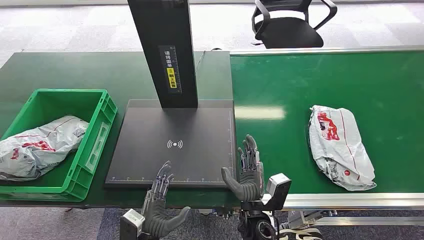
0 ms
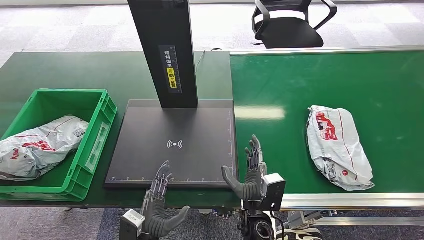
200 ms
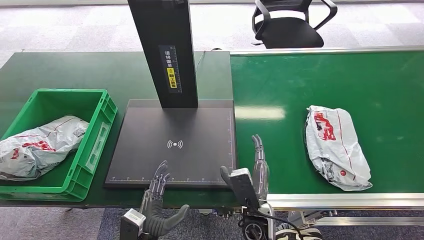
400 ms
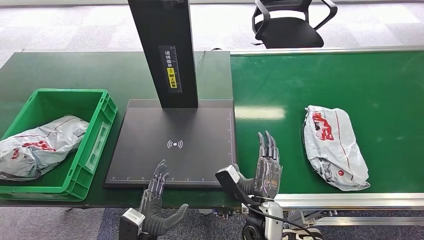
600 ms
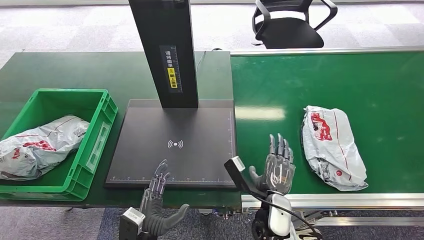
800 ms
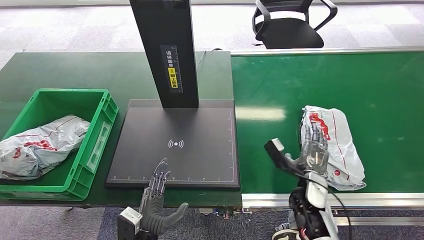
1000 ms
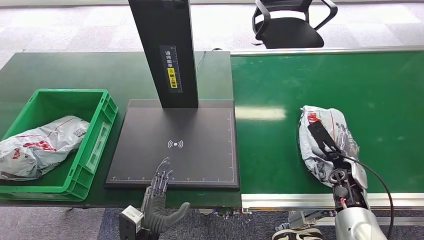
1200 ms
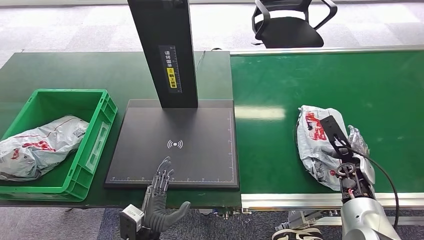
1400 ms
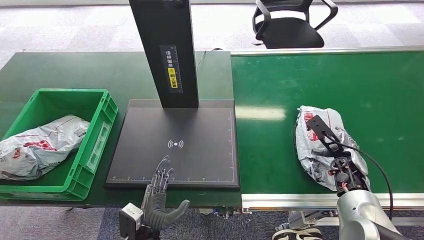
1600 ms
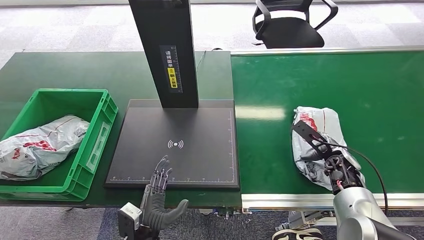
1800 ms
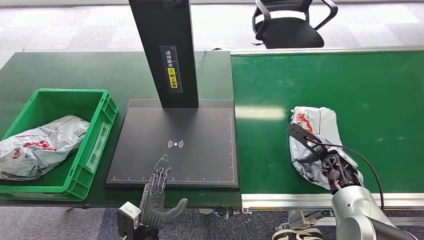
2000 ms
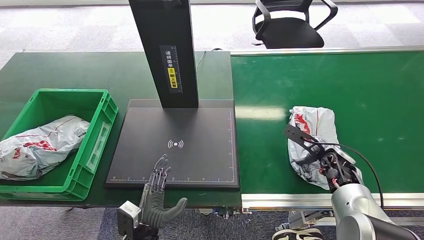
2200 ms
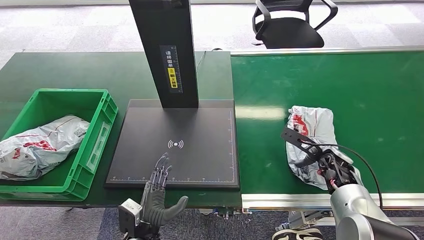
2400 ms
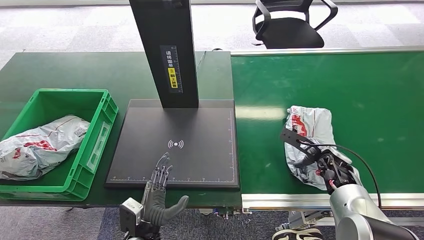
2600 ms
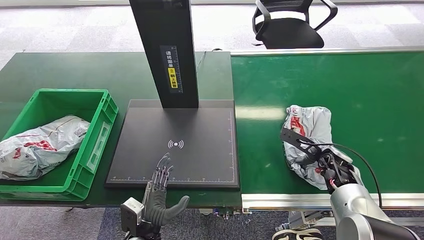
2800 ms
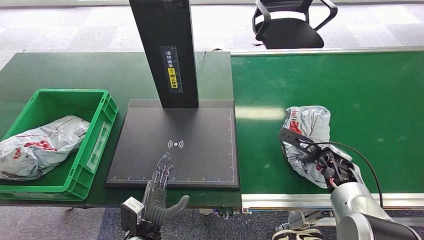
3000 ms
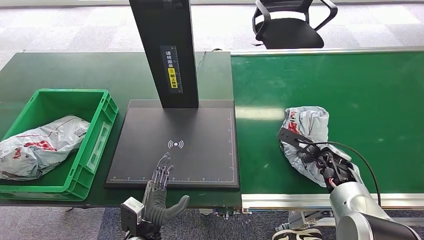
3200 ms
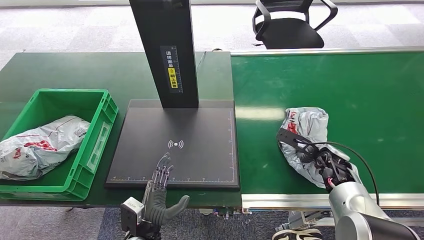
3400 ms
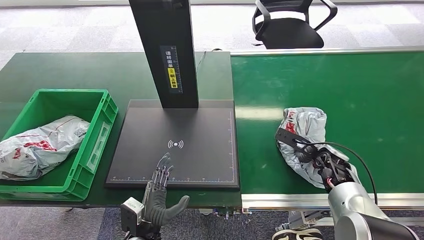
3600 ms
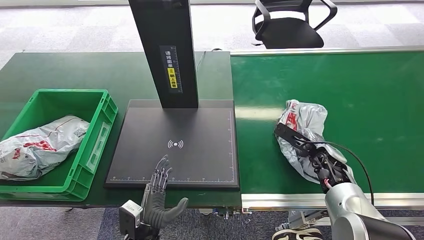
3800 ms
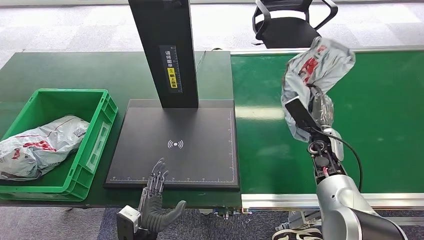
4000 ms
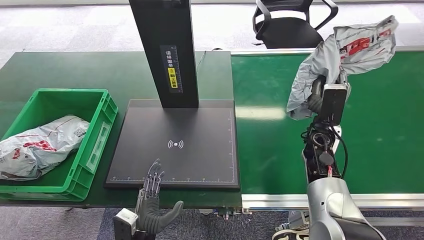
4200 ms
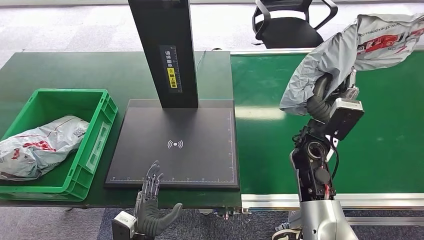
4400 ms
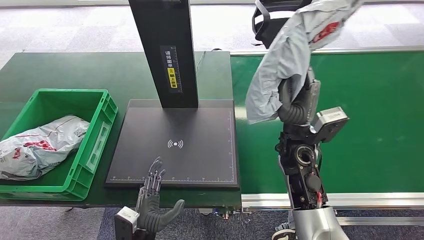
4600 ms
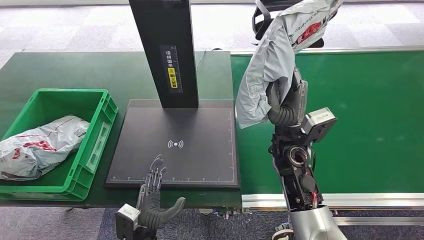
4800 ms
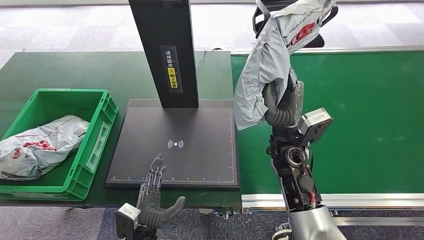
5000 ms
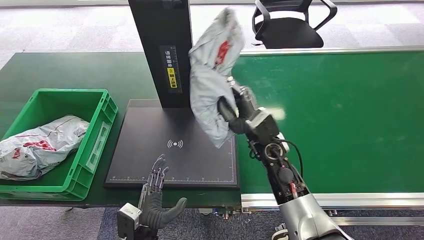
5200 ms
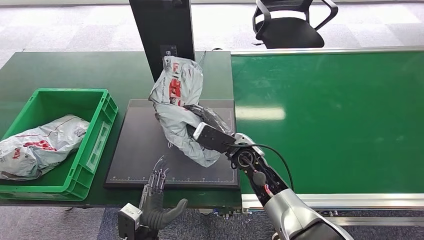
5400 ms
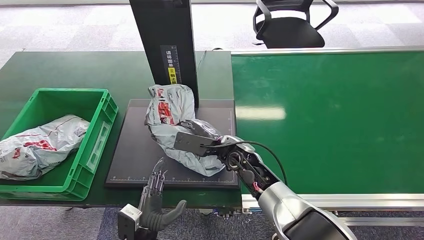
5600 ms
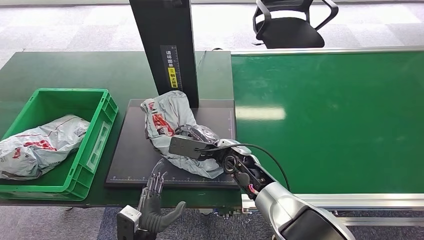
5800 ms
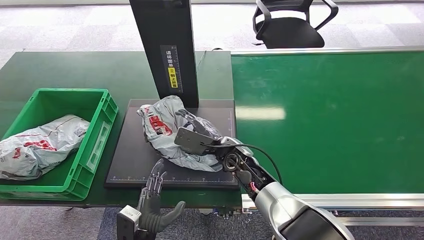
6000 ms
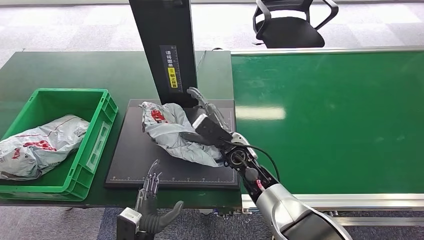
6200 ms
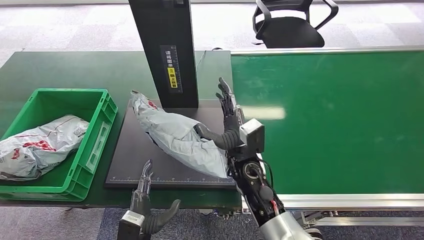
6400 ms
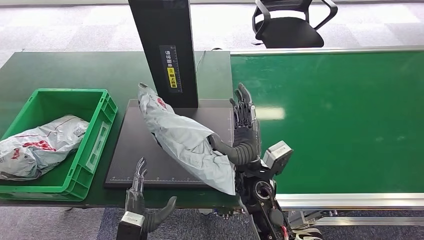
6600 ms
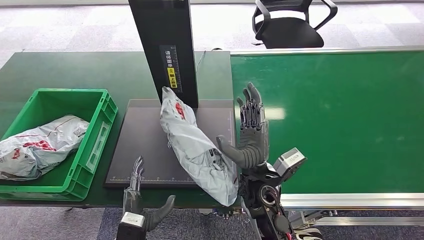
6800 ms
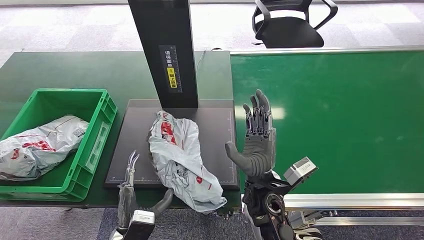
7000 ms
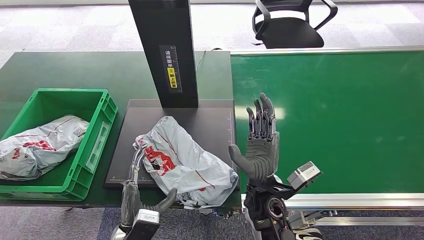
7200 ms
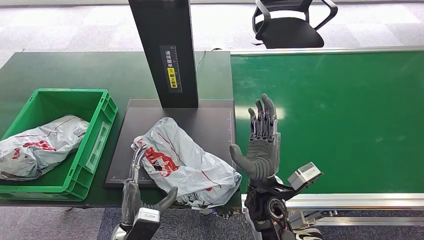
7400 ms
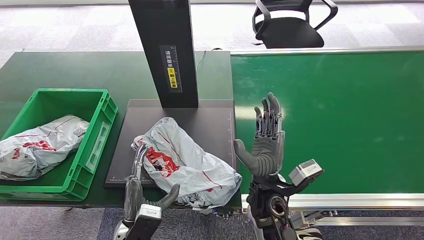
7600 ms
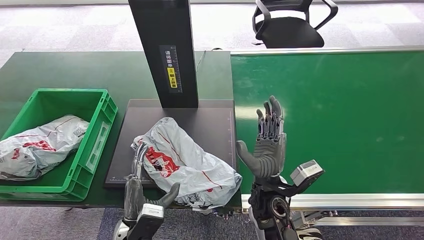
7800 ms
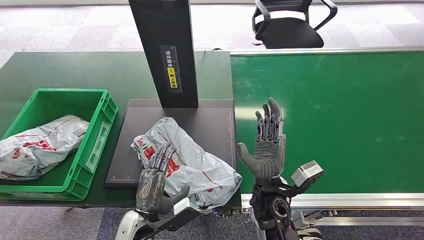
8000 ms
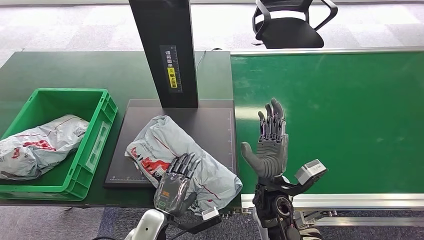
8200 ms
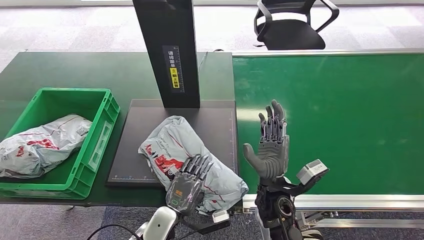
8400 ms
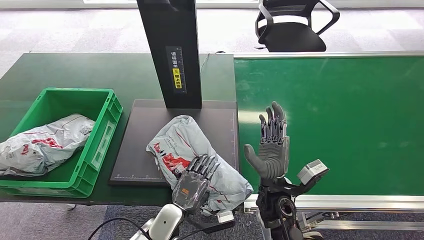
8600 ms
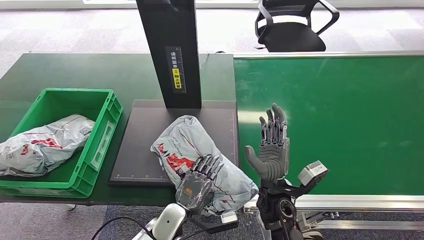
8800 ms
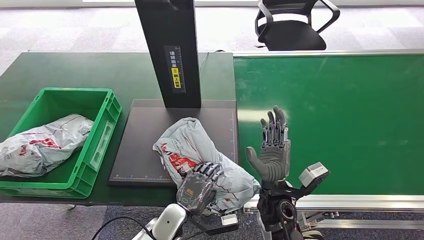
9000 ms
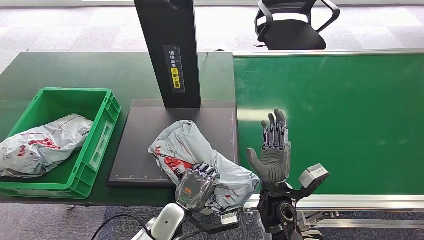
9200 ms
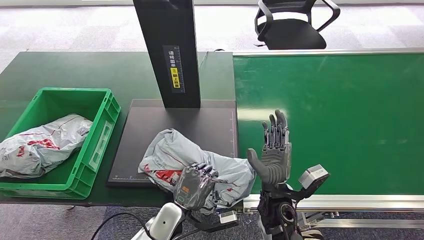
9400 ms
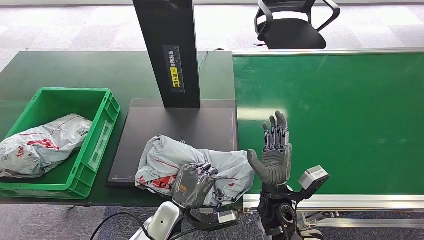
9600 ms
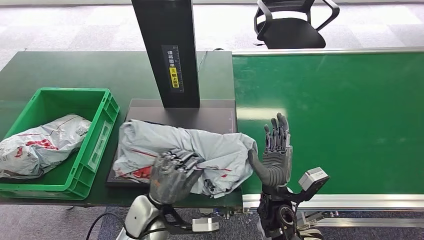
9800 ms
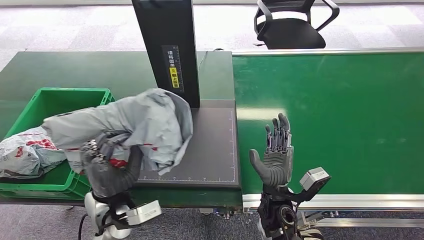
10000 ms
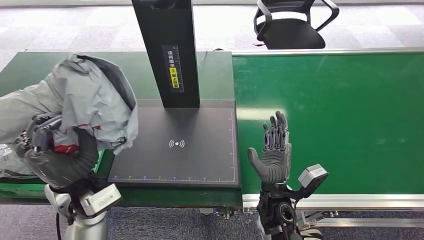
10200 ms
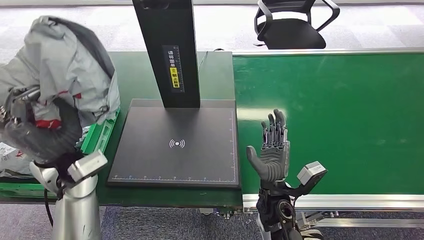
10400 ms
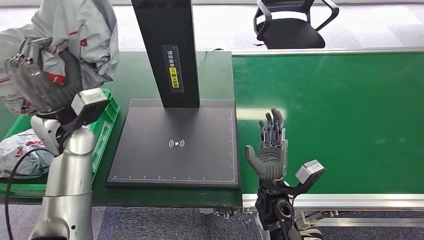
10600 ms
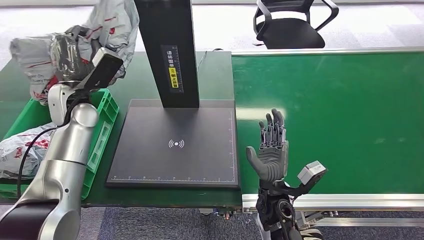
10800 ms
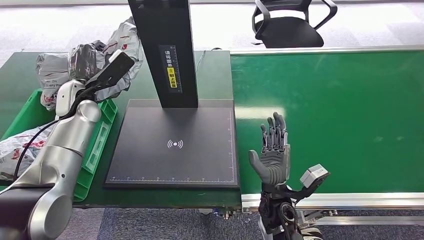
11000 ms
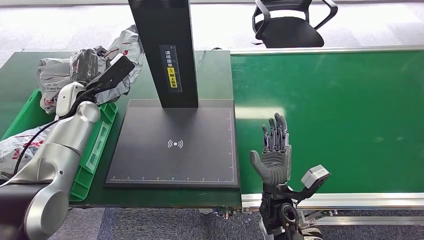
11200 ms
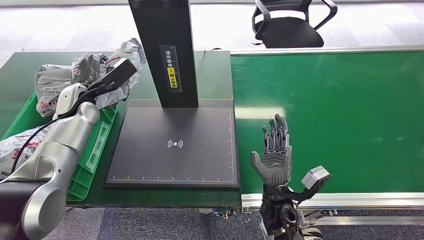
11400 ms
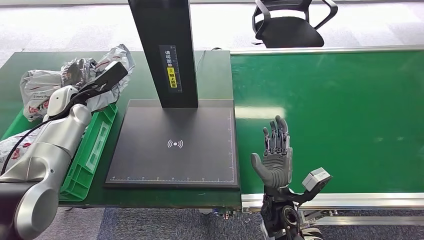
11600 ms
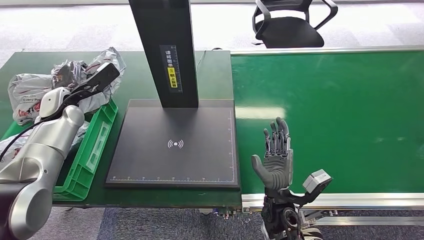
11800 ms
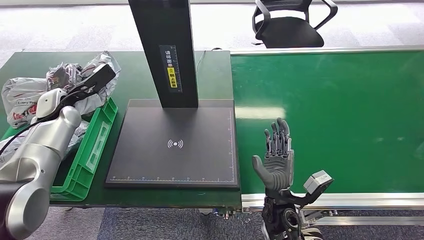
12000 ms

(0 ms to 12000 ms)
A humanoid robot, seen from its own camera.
Step, 0 ms - 4600 ms: Pick up the package from the conveyor belt.
Step, 4800 ms - 7800 ms: Place the package onto the inbound machine.
Step, 8000 ms - 10400 ms: Pick up the package from the inbound machine.
6000 ms - 7600 ms: The right hand shifts roughly 10 cm backward.

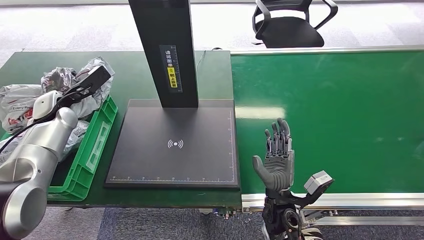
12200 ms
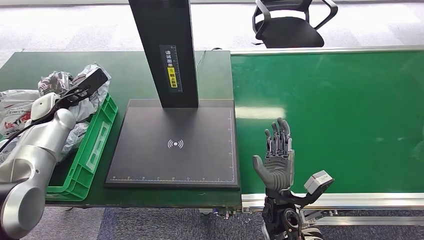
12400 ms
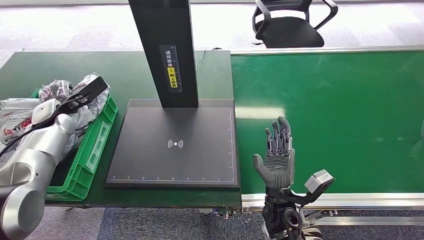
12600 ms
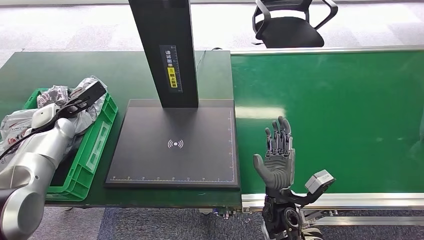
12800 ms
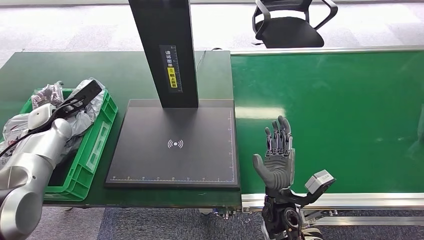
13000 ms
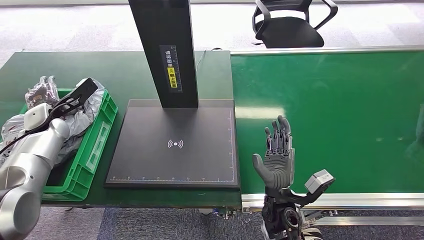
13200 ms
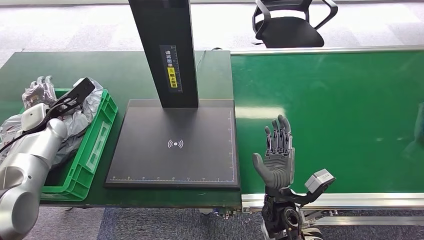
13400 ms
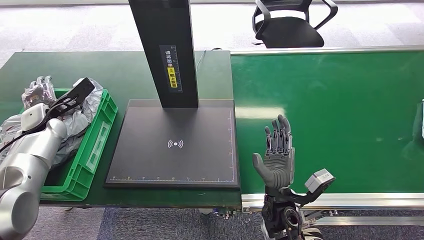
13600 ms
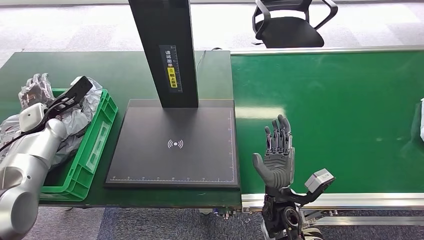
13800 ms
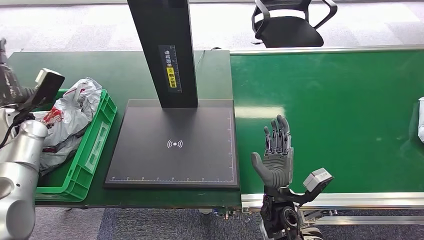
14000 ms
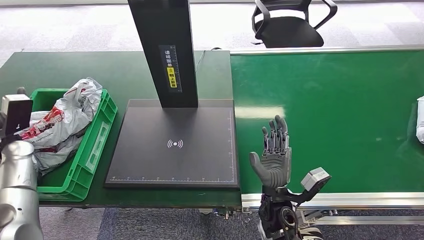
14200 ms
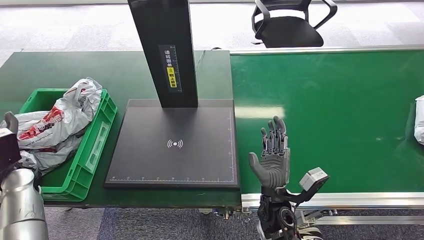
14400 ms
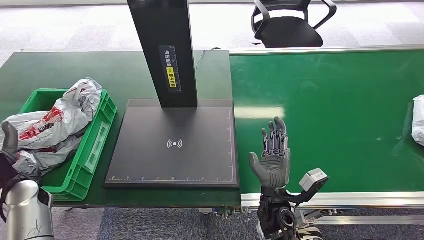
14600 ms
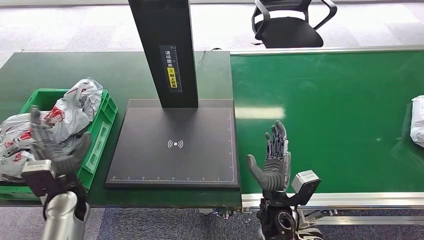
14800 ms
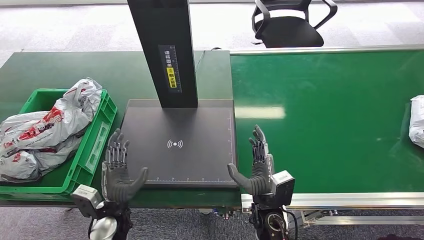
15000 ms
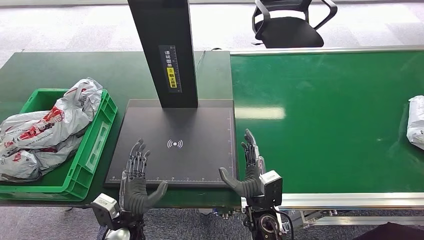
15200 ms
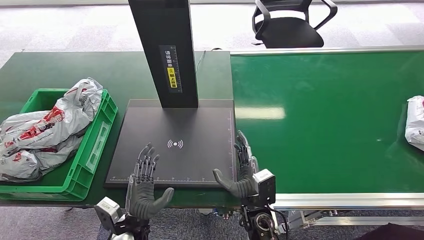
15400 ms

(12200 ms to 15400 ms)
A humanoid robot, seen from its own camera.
Step, 12200 ms - 15400 ms: Place the package into the parcel locker.
12200 ms - 13800 ms: The left hand moves about 5 cm.
13800 ms - 15400 ms: The right hand moves some 5 cm. The left hand heads to the right, backward and downward, covering approximately 40 cm.

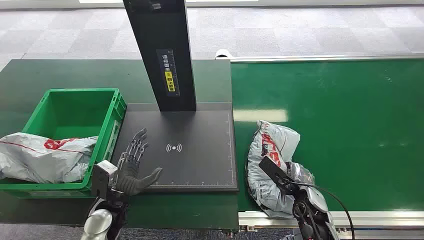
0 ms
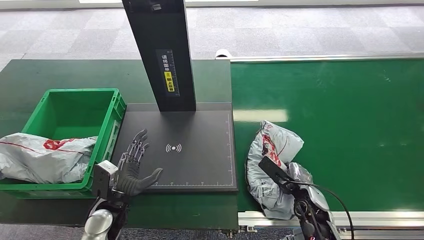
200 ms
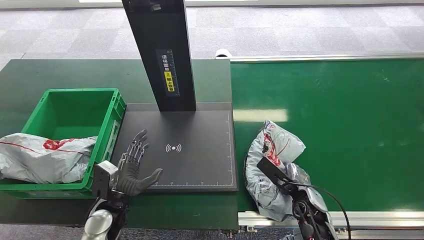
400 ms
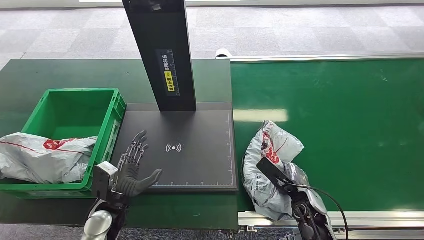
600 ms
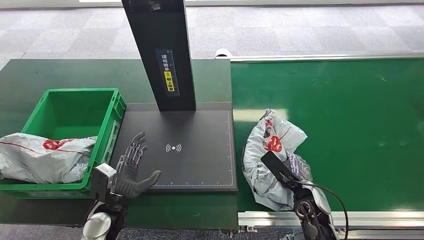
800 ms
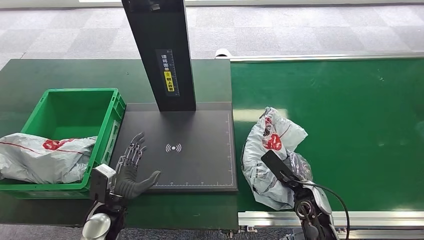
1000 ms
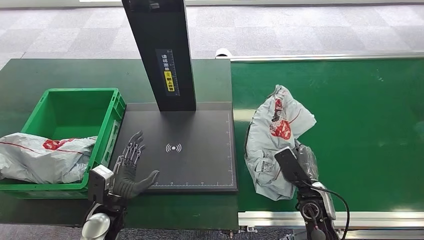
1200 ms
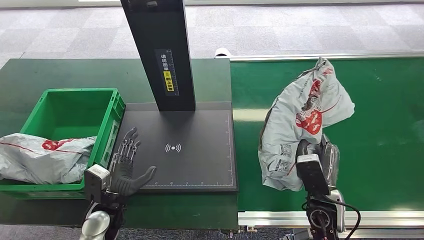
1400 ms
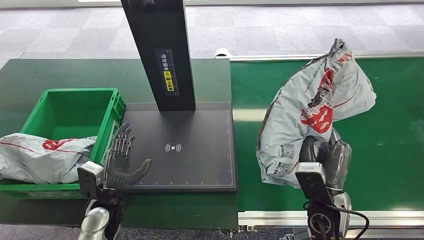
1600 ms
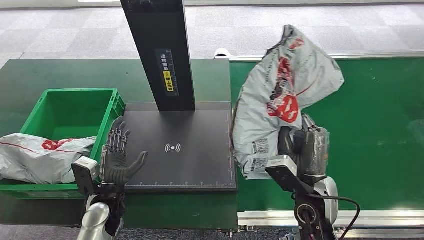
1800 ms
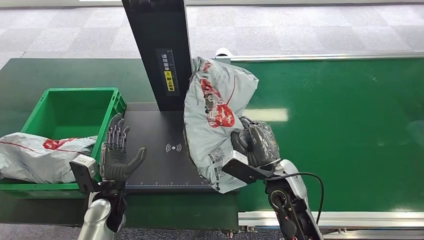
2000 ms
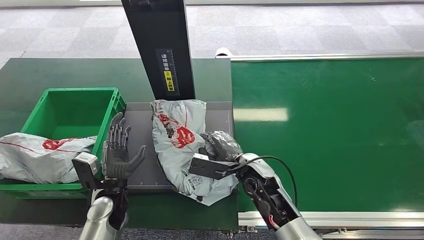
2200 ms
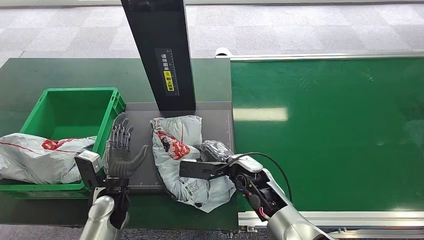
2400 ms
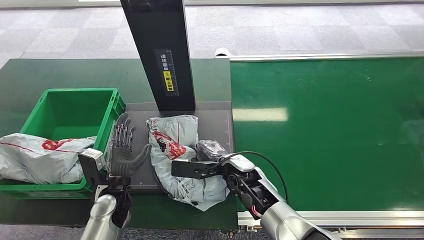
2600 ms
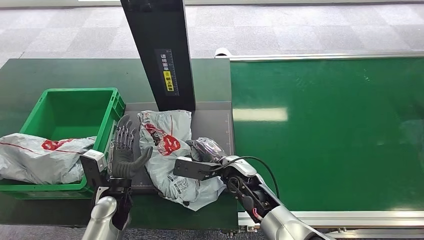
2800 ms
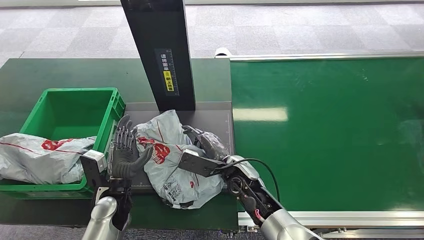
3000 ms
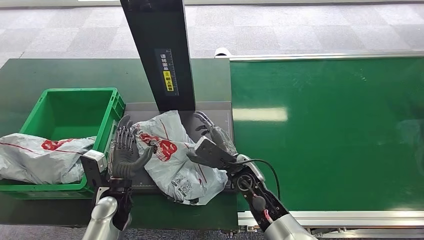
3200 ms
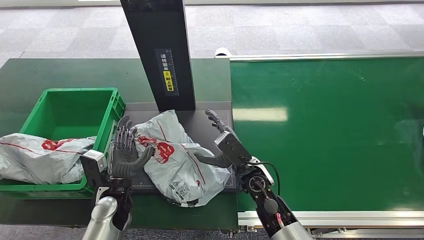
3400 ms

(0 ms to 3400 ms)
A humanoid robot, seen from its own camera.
Step, 0 ms - 1600 ms: Pick up the package from the conveyor belt.
